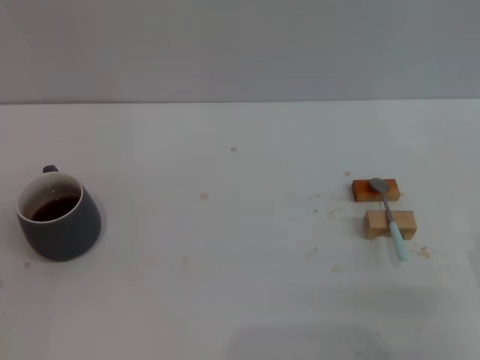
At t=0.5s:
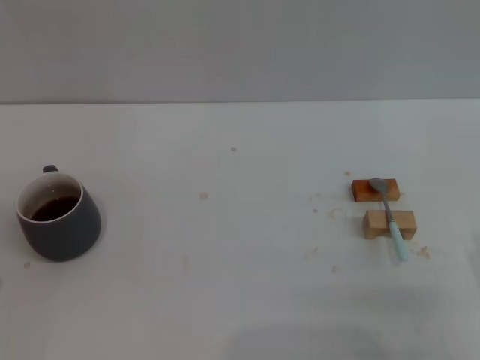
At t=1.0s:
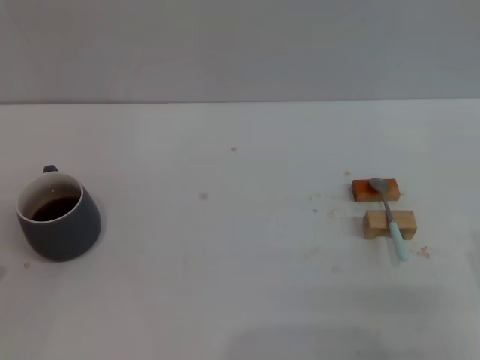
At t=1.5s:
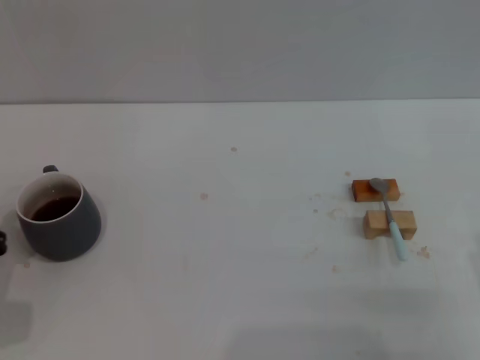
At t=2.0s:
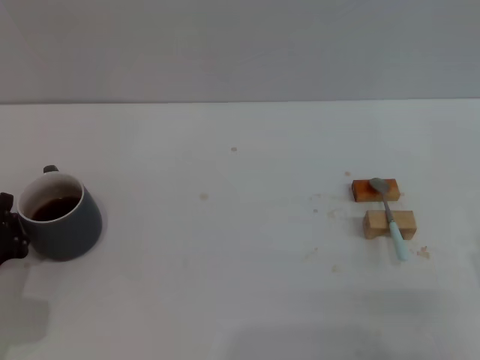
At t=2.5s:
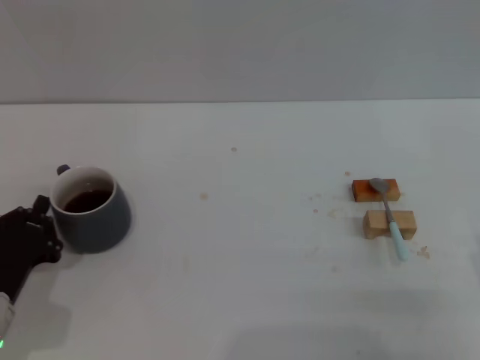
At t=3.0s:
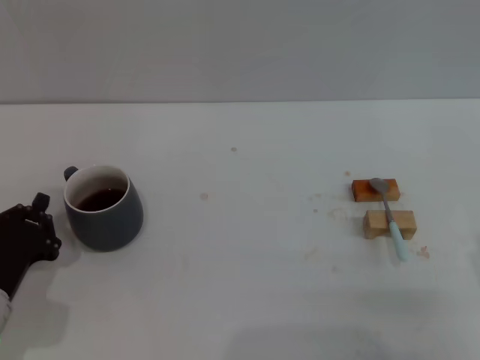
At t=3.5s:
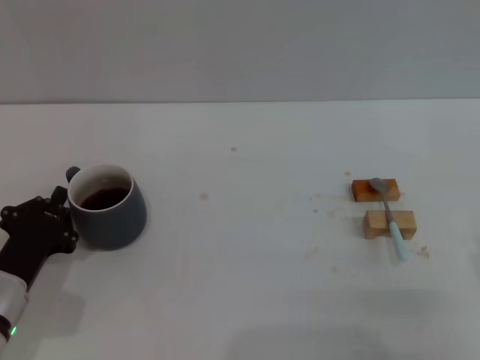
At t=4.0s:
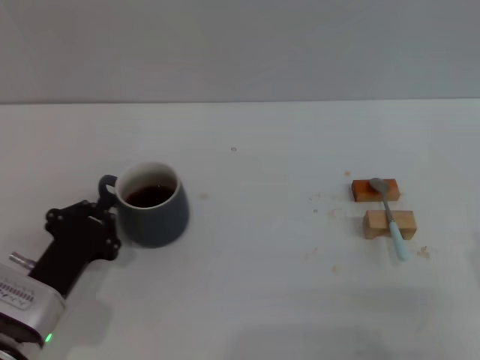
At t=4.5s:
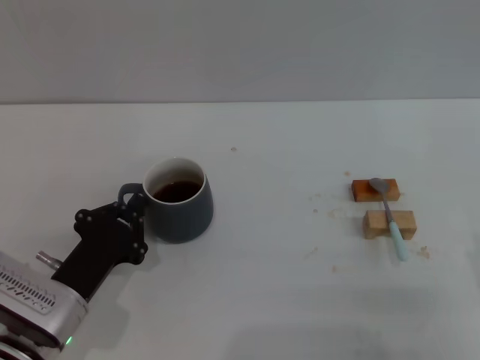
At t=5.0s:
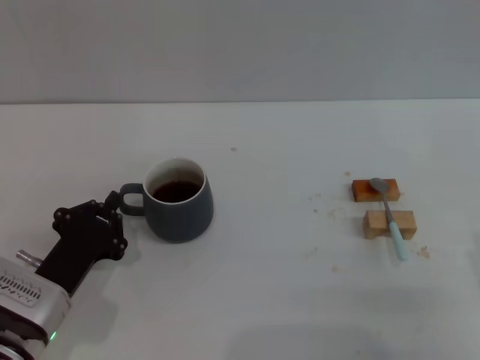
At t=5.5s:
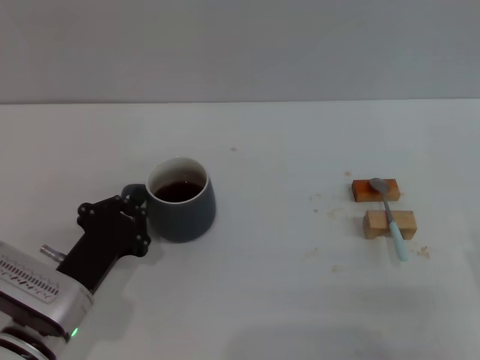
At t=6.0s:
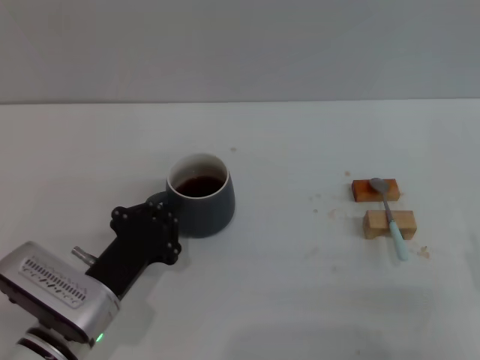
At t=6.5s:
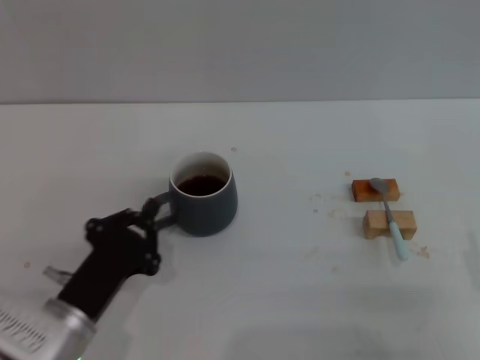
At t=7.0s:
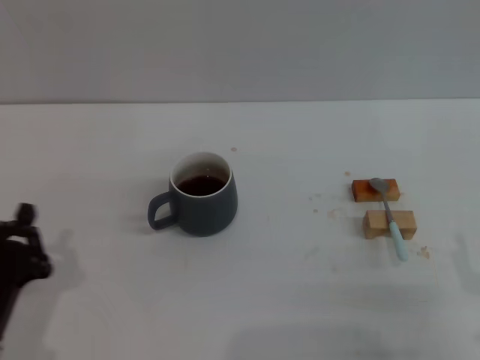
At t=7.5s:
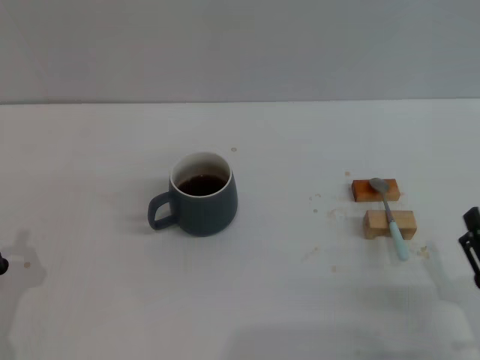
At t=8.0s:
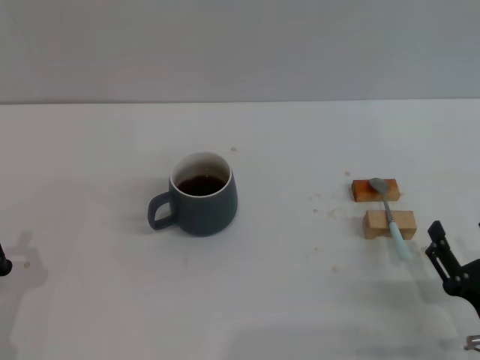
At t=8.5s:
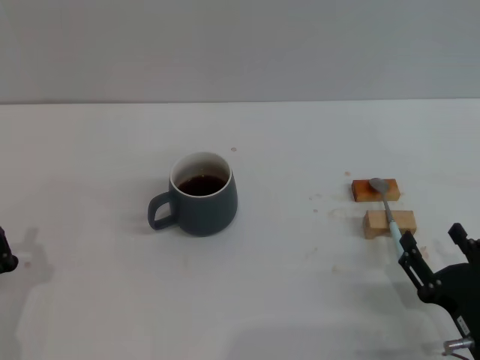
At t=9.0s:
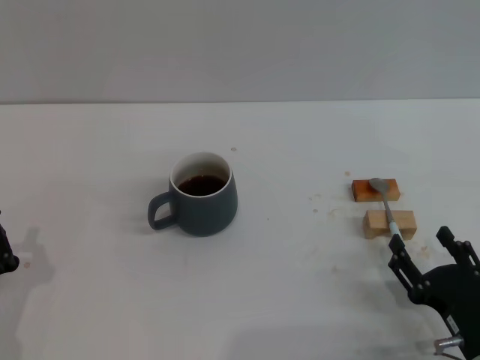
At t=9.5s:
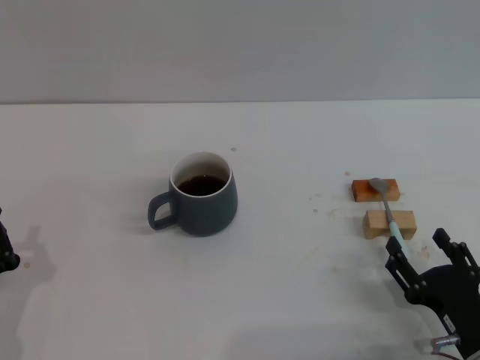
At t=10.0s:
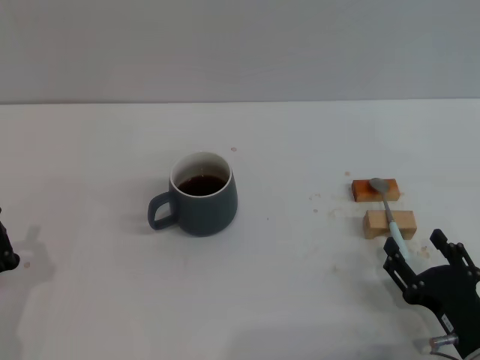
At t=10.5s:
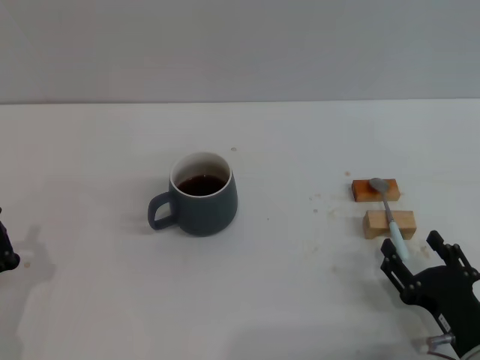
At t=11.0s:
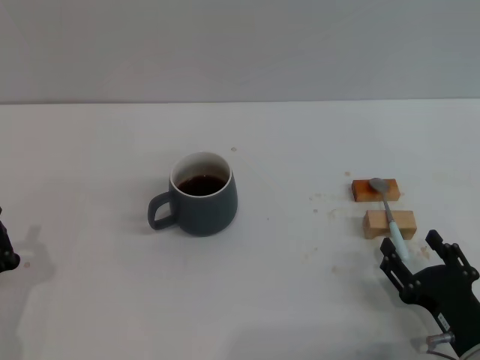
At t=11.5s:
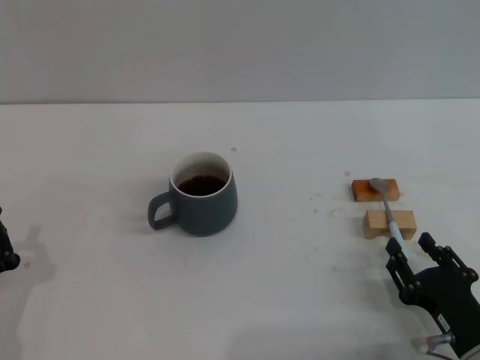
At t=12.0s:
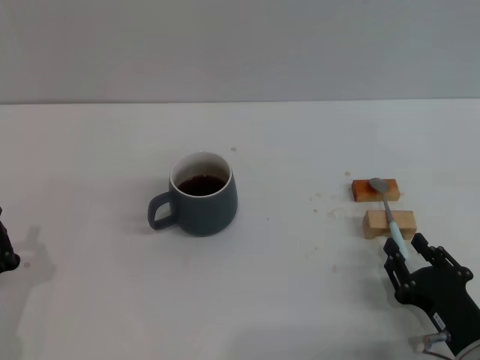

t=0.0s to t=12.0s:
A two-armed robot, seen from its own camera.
Task of the whole recording: Move the grey cup to the center, lift the blue spoon, stir it three times in the cup, and put the spoon into the cup.
Step, t=0.0s to t=6.5s: Move the cup with coffee to the center of view with the left gripper.
t=0.0s to t=2.0s: The left gripper is displaced forward by some 5 cm.
t=2.0s to t=4.0s: The left gripper travels to the right by roughly 5 cm.
t=4.0s to t=6.0s: The left gripper is displaced to the right by approximately 5 cm.
t=6.0s to t=8.0s: The right gripper heads downward, covering some 5 cm. Meanwhile the left gripper goes roughly 15 cm to the left and backward.
t=8.0s to t=10.0s: The grippers make only small movements.
t=10.0s to t=12.0s: The right gripper closes its fingers.

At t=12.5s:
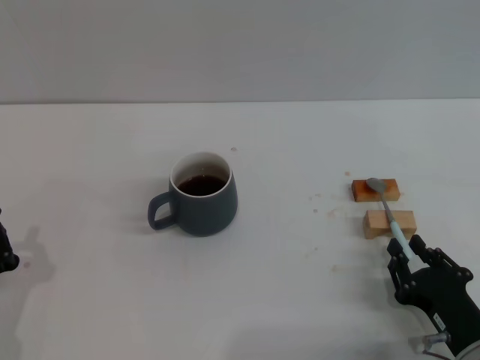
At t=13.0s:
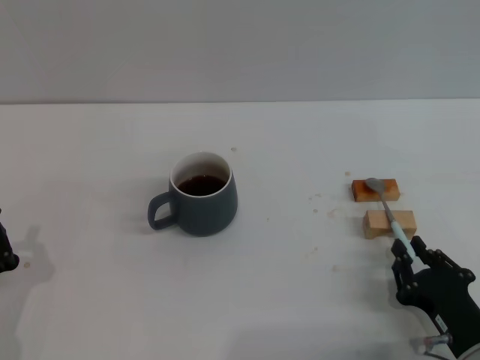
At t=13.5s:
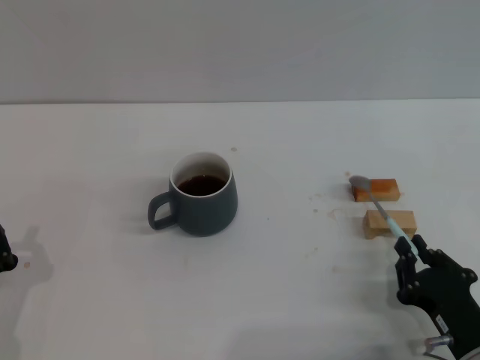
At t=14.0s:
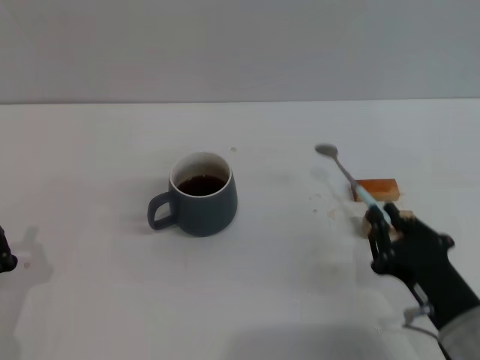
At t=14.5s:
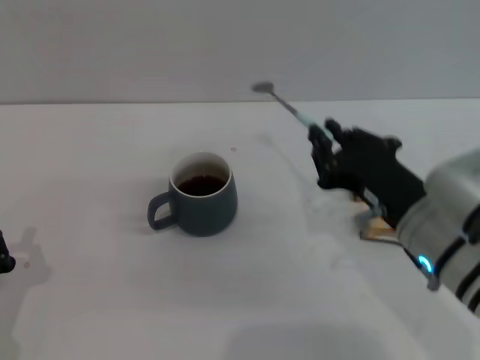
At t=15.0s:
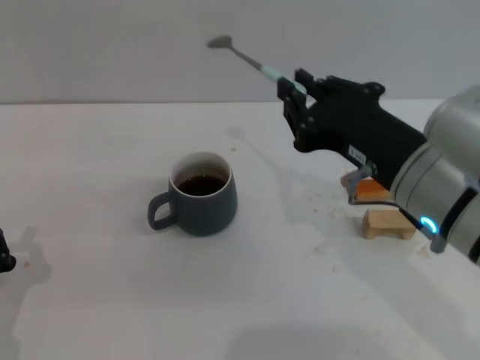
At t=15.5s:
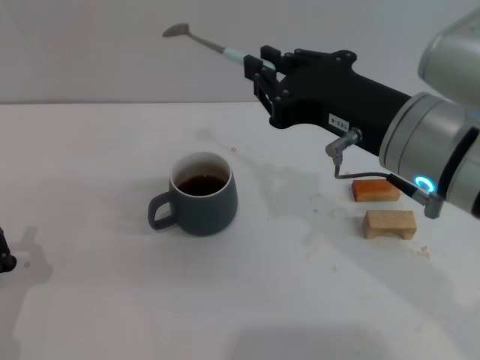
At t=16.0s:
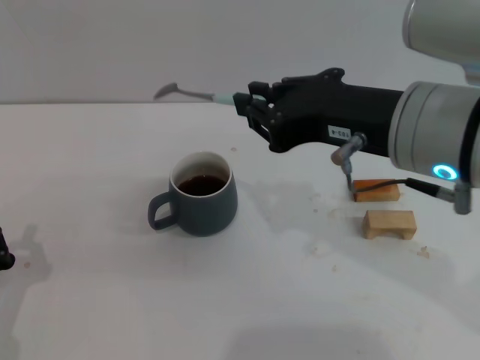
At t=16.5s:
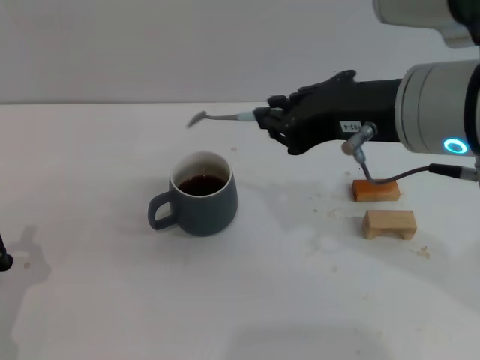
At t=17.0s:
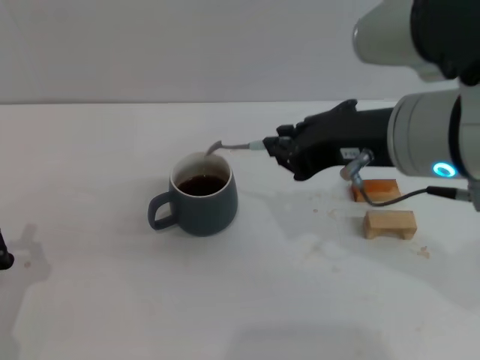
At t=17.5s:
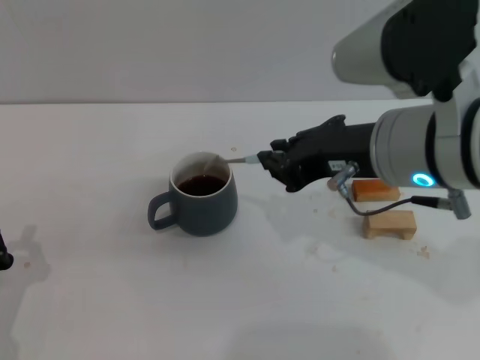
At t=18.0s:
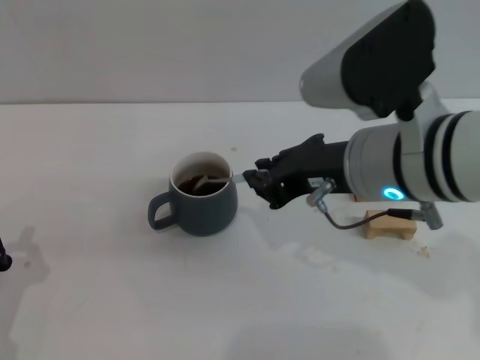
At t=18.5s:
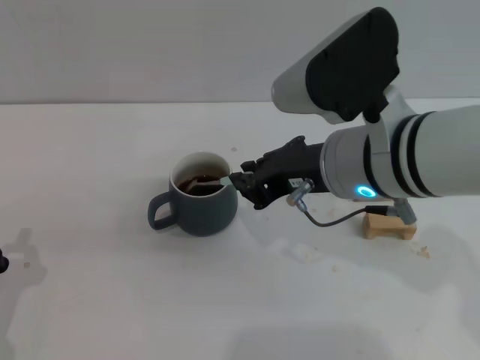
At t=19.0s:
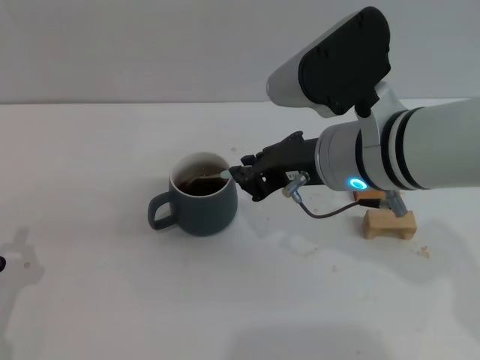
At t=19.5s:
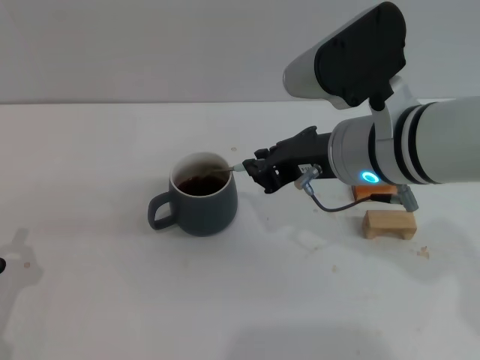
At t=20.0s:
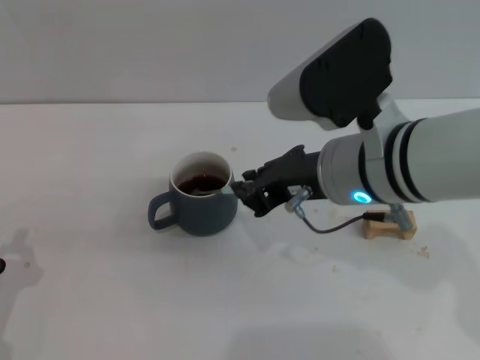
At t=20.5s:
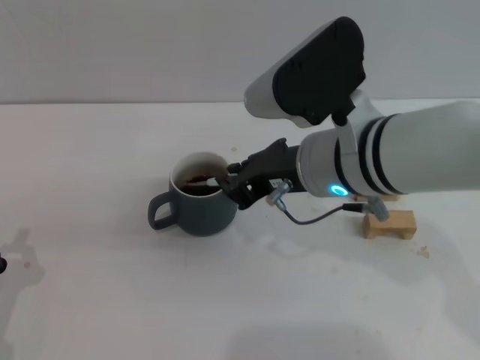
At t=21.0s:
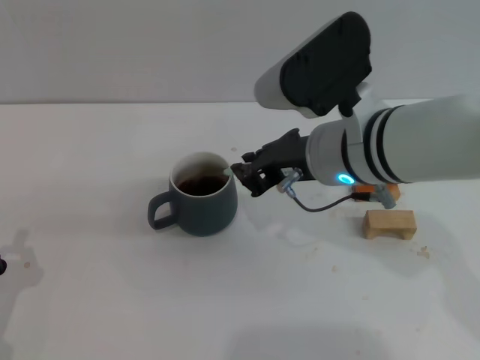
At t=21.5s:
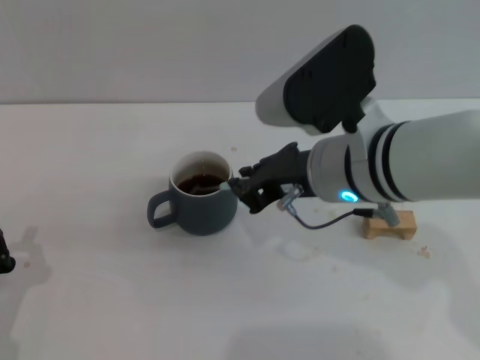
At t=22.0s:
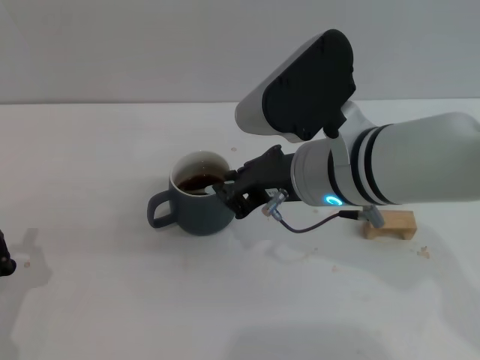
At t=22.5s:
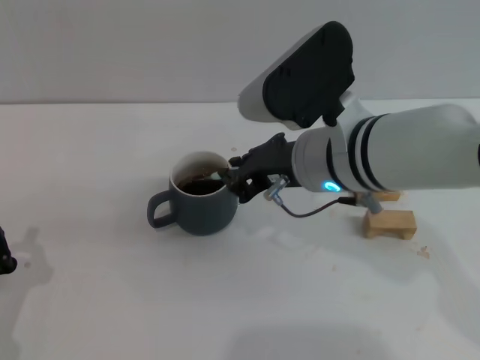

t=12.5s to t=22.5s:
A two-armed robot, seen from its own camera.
Task of the whole recording: Move the grey cup to the center, lift the blue spoon, stir it three times in the cup, and put the spoon into the cup.
t=12.5s to t=14.5s: The right gripper heads upward, to the left and forward, covering about 20 cm.
t=14.5s to t=16.5s: The right gripper shifts roughly 15 cm upward.
t=16.5s to t=18.5s: The right gripper goes some 5 cm downward.
t=18.5s to t=22.5s: The grippers make only small movements.

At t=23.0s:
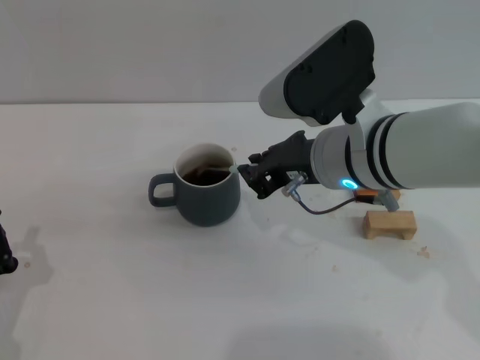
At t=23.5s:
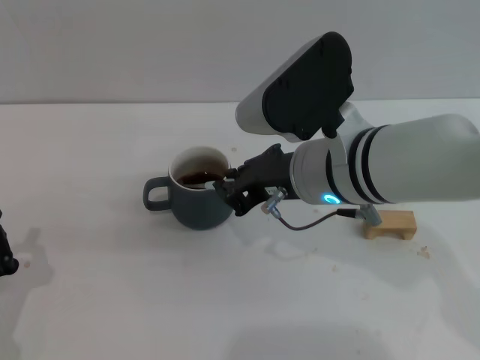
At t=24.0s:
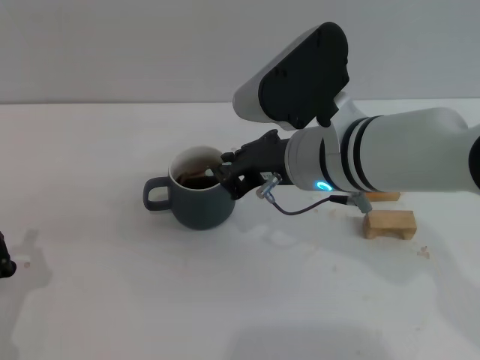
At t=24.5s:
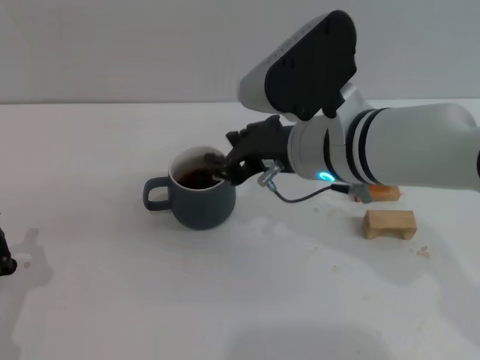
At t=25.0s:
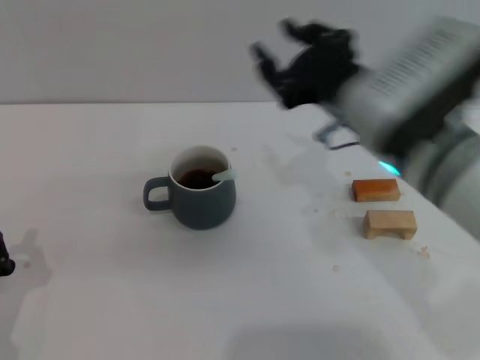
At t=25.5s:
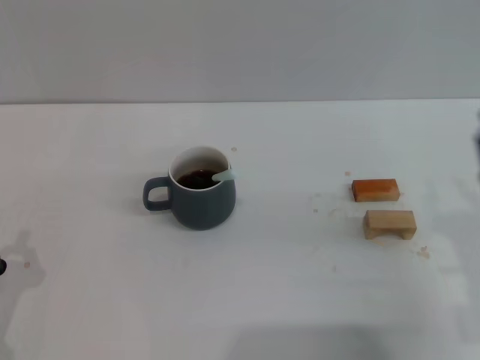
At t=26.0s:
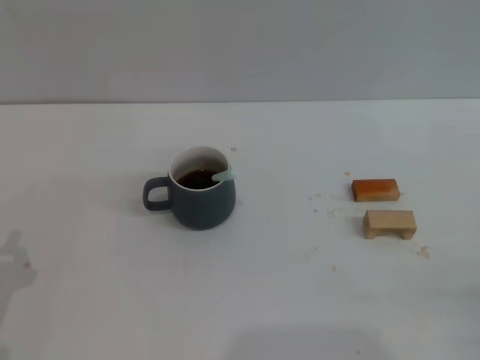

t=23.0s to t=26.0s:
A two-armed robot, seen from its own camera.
Task of the whole recording: Move the grey cup to the center, lift the blue spoon, stir it three times in the cup, and put the spoon into the cup.
t=23.0s to t=24.5s: The grippers make only small movements.
t=24.5s to t=26.0s: The right gripper travels to the right, backward and downward by approximately 35 cm, and opens up.
